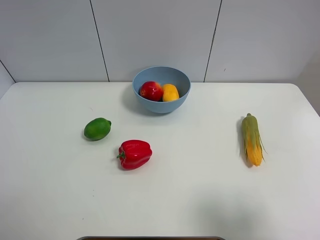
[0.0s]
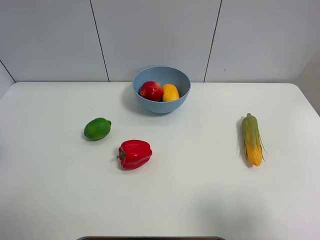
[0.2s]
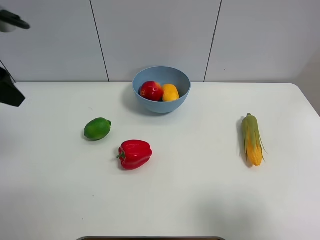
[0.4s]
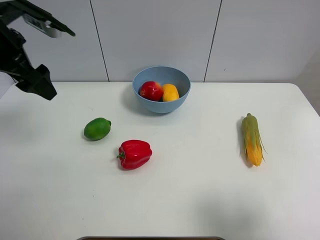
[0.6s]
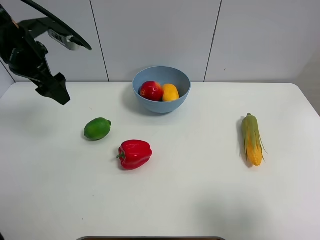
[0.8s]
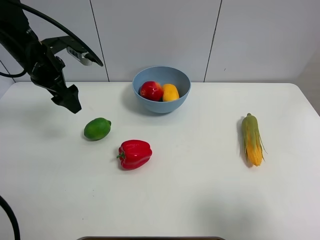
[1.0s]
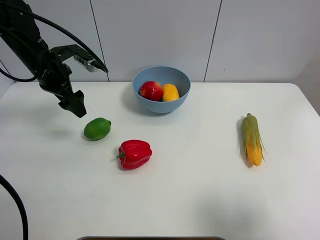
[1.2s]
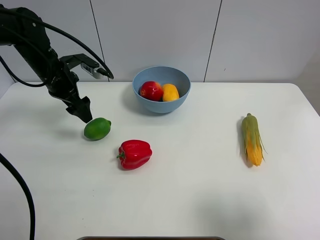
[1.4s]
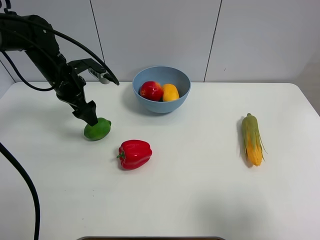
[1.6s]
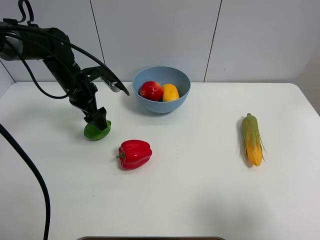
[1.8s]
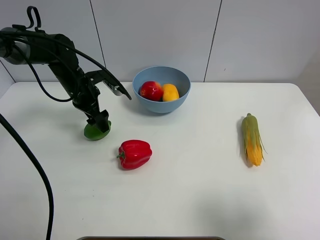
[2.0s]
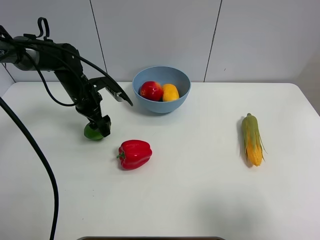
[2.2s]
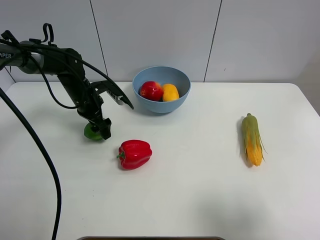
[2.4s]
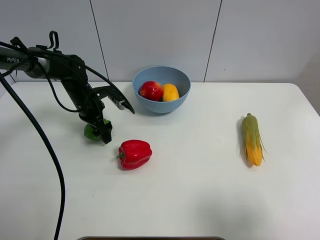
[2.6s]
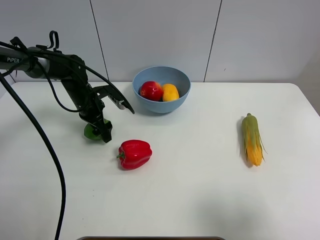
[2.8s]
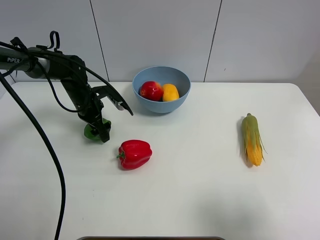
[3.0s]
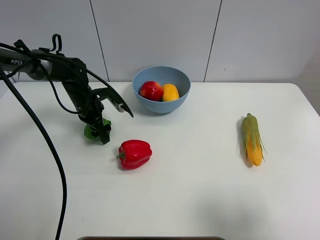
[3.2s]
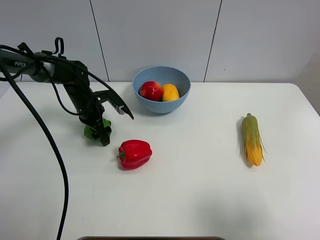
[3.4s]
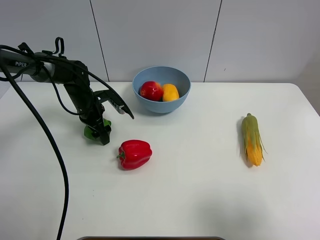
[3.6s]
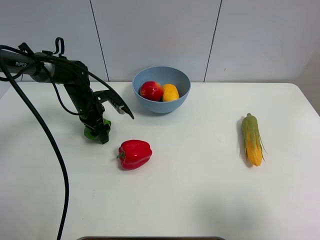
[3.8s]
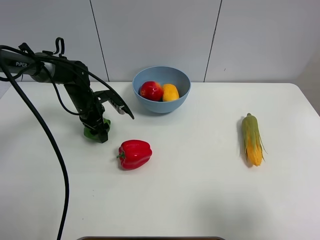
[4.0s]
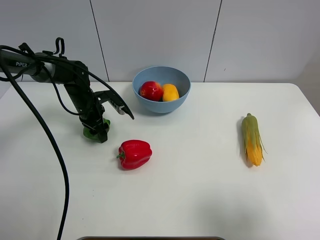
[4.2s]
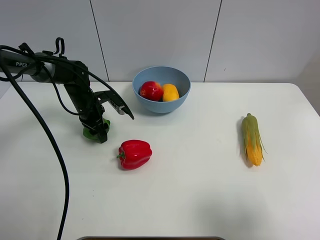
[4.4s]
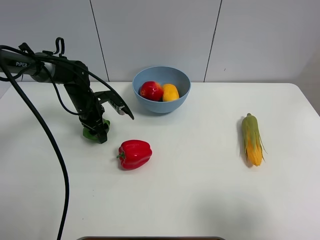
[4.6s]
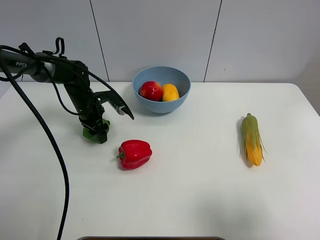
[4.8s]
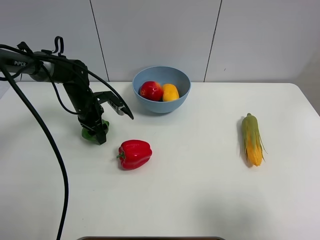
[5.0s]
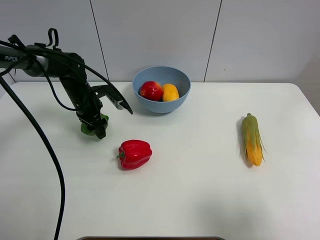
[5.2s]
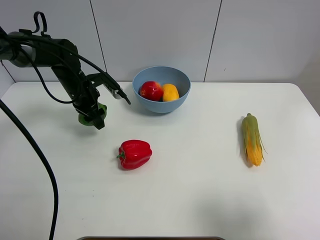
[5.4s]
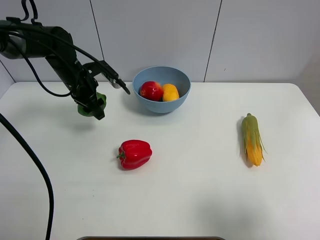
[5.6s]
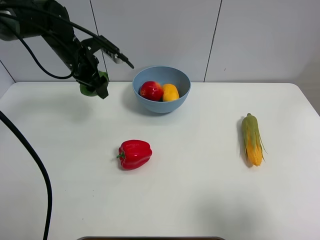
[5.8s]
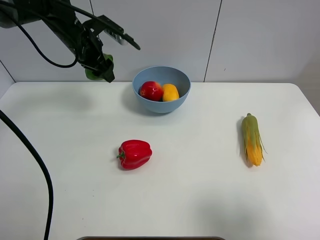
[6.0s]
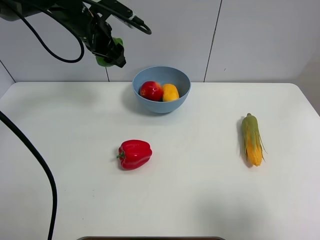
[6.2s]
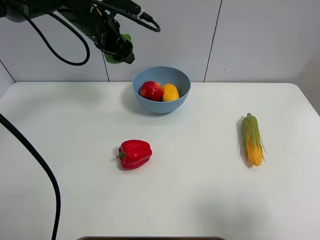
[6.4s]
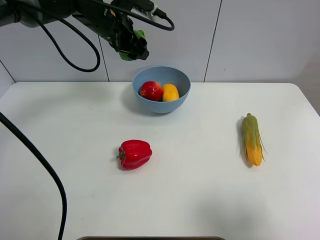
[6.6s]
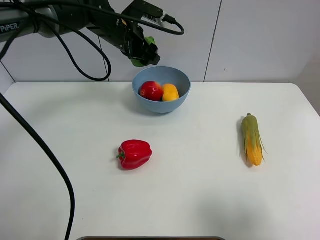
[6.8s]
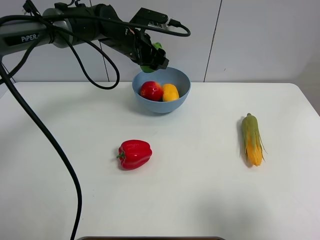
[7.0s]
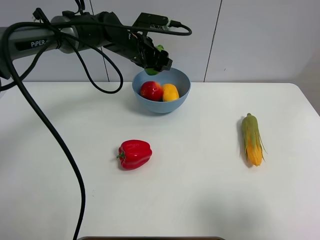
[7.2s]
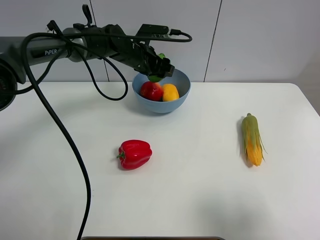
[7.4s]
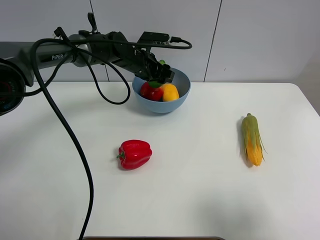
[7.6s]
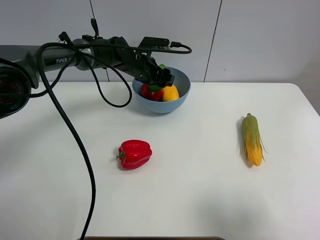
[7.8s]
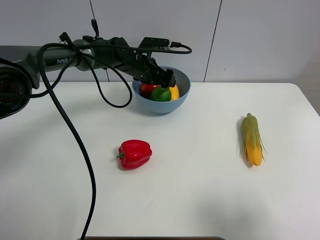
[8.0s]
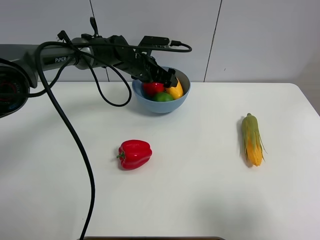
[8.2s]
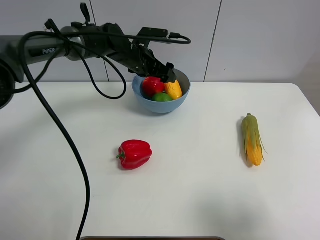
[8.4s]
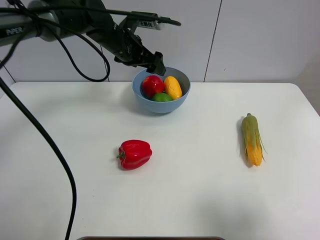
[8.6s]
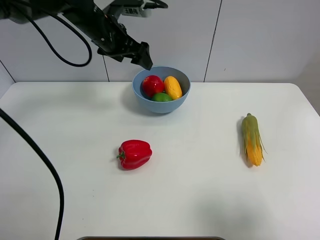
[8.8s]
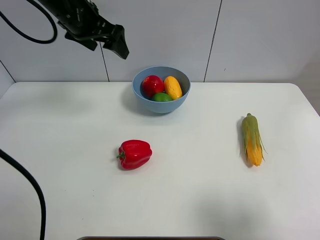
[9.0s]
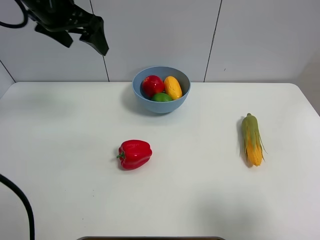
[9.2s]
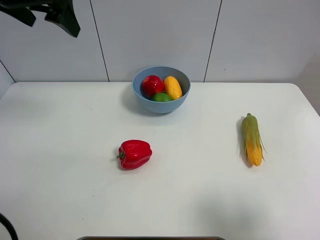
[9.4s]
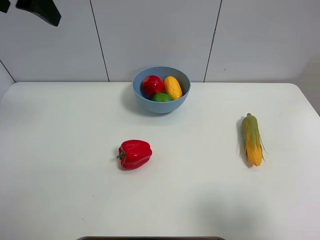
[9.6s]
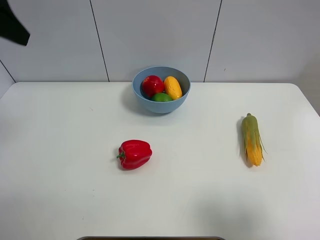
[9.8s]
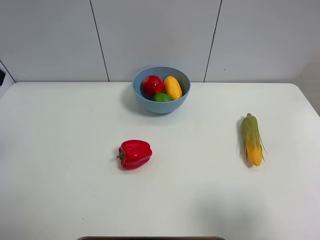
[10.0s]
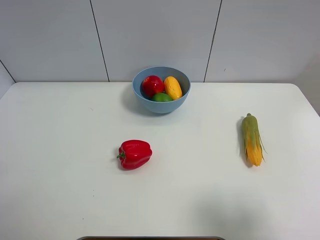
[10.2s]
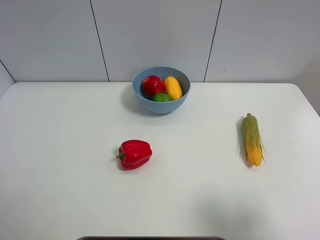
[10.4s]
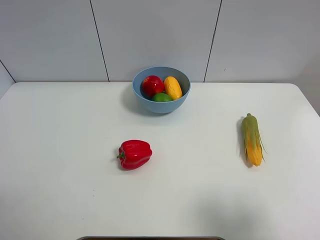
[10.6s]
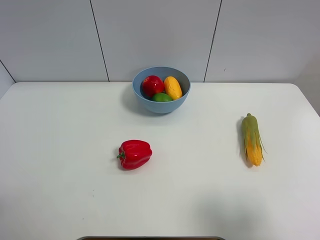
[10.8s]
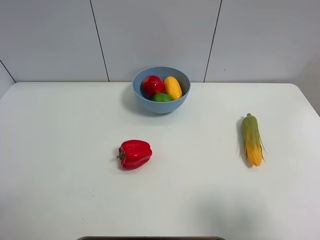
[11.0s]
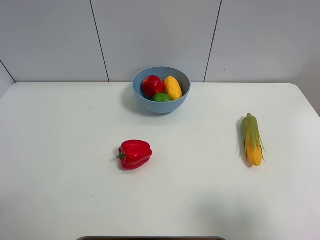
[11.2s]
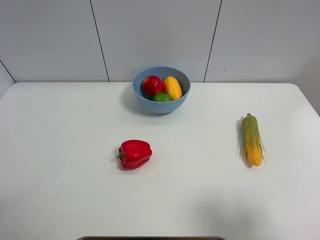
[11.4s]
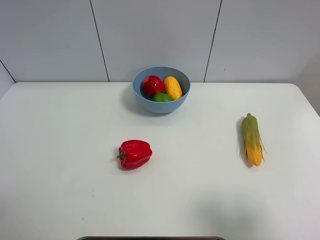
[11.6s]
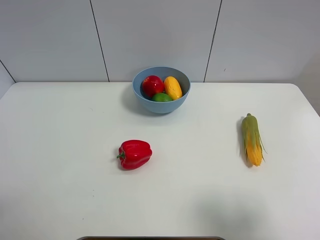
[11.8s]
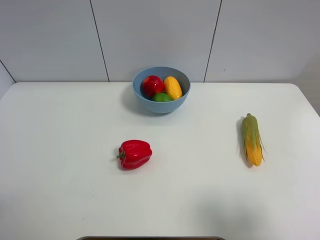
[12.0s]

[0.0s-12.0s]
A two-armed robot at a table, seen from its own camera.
Task of the whole recording: Put the three fruits on the table into a bowl.
Step, 0.0s to 4.0s: Grasp the green lemon with left gripper.
Step, 4.2s to 8.2s: Place the green lemon in the blue bowl with left gripper.
0.0s to 1.6s: The left gripper moves forward, downward and to the right, about 35 cm.
1.6s to 3.0s: The left gripper is displaced downward by some 10 cm.
3.0s to 4.4s: The left gripper closes.
4.4s to 6.0s: The left gripper goes about 15 cm upward.
6.0s to 7.6s: The left gripper is displaced to the right and downward by roughly 15 cm.
7.6s to 9.0s: The left gripper shifts some 20 cm upward, to the left and backward, and opens.
9.0s to 10.4s: The left gripper goes about 35 cm backward and to the left.

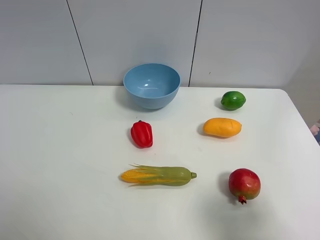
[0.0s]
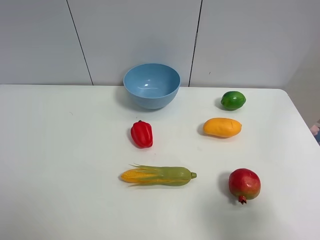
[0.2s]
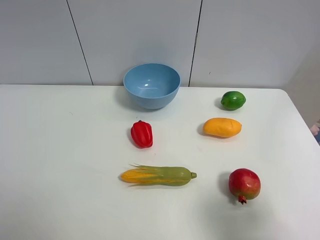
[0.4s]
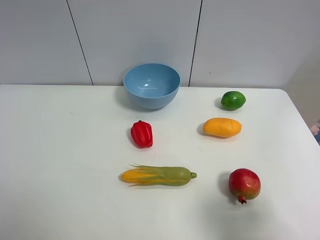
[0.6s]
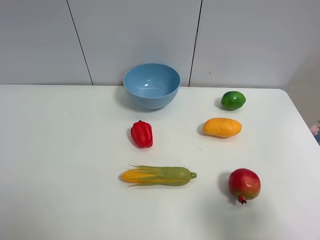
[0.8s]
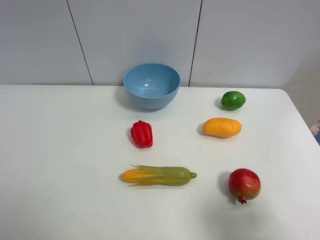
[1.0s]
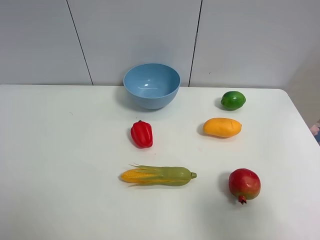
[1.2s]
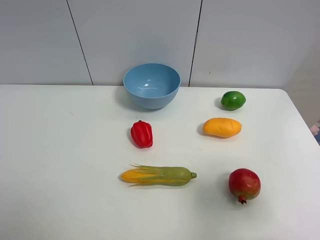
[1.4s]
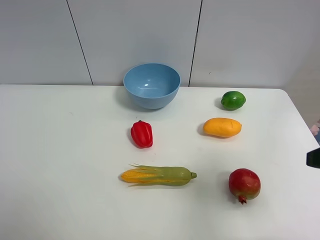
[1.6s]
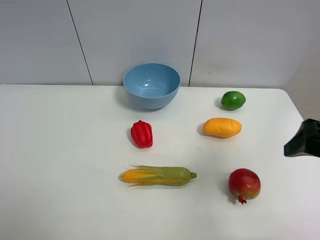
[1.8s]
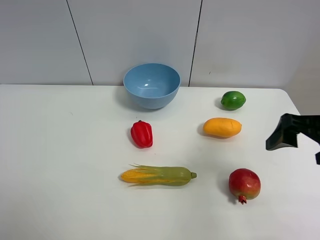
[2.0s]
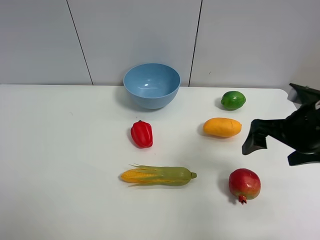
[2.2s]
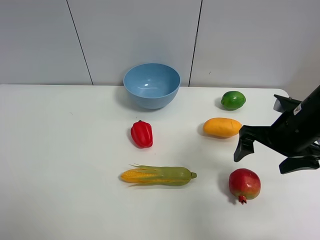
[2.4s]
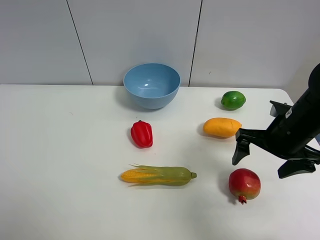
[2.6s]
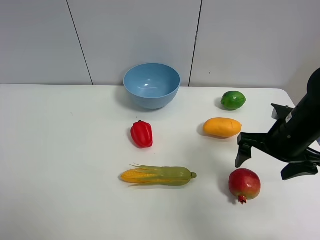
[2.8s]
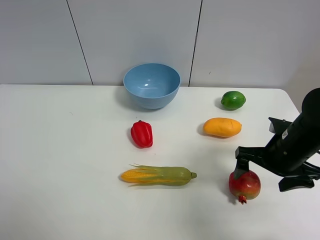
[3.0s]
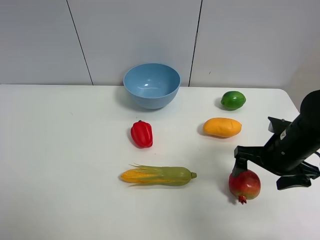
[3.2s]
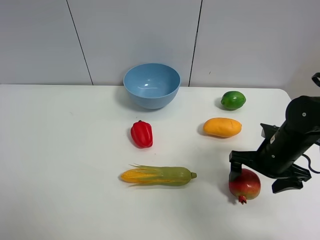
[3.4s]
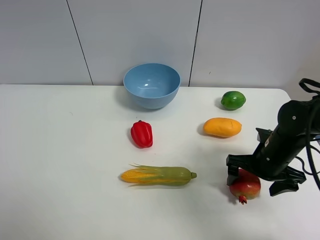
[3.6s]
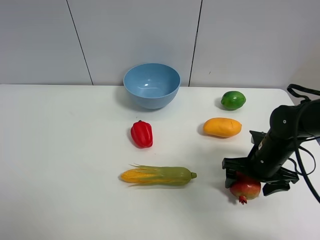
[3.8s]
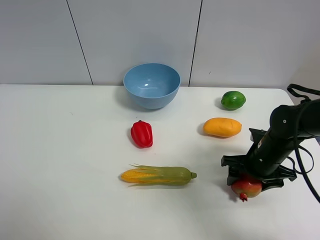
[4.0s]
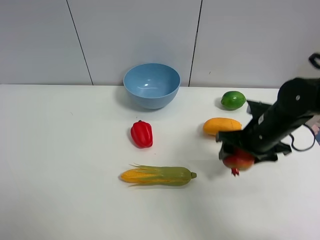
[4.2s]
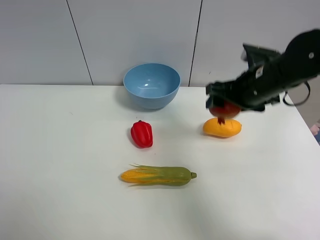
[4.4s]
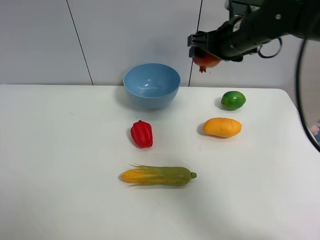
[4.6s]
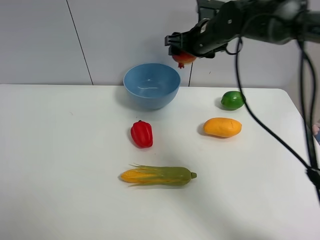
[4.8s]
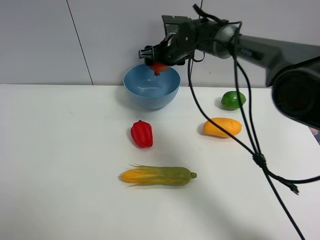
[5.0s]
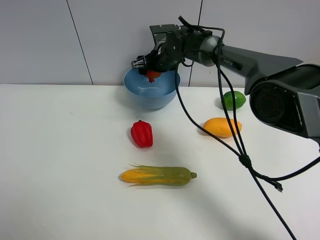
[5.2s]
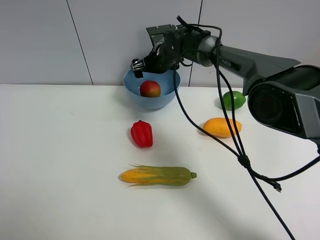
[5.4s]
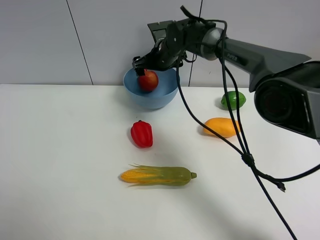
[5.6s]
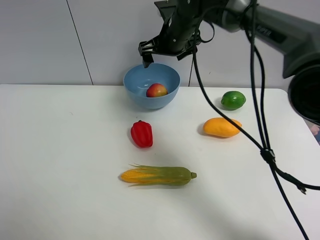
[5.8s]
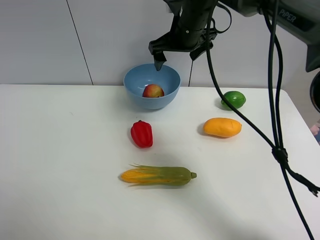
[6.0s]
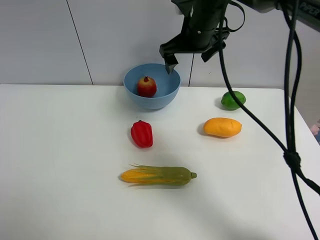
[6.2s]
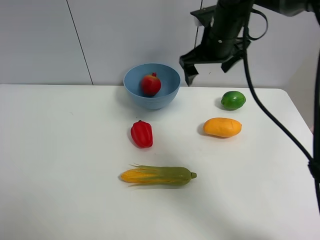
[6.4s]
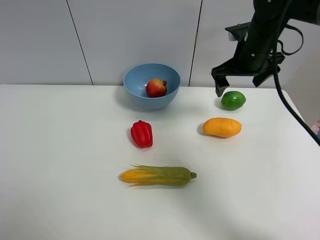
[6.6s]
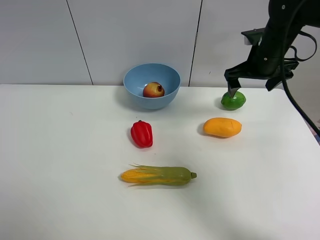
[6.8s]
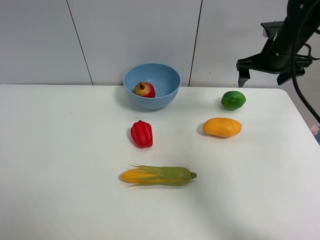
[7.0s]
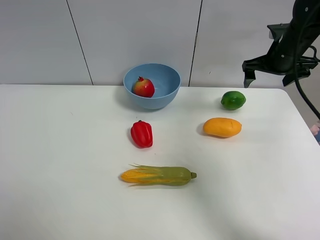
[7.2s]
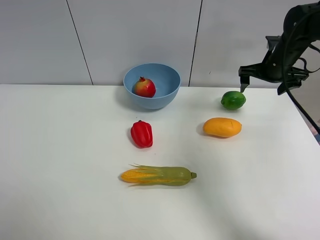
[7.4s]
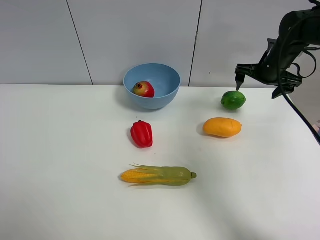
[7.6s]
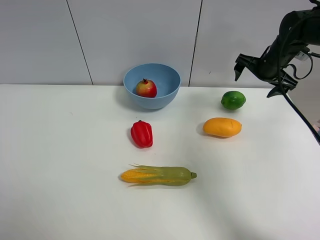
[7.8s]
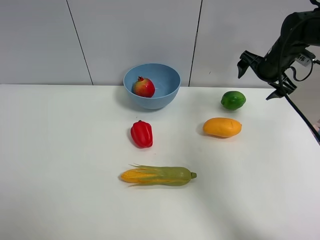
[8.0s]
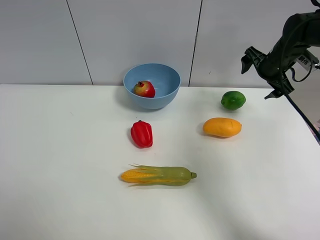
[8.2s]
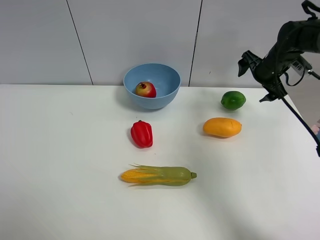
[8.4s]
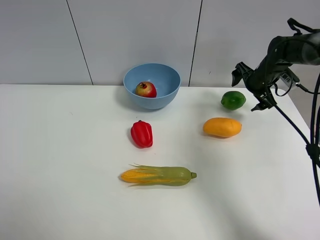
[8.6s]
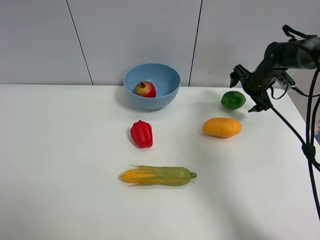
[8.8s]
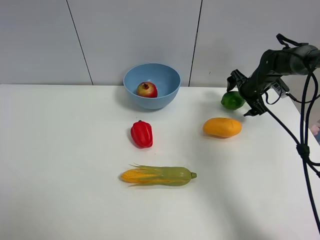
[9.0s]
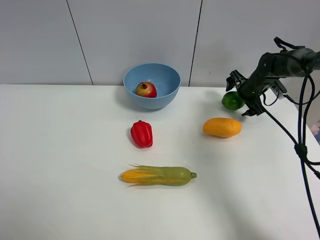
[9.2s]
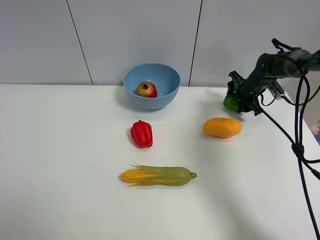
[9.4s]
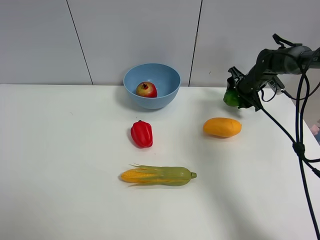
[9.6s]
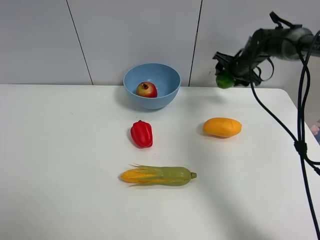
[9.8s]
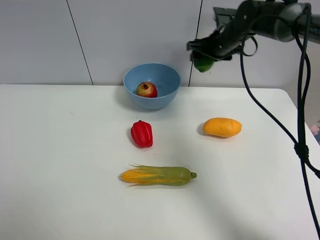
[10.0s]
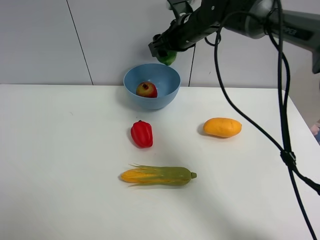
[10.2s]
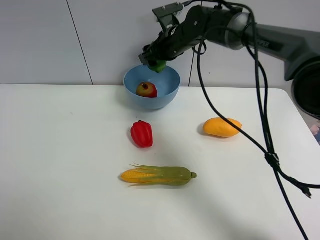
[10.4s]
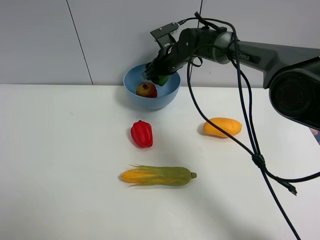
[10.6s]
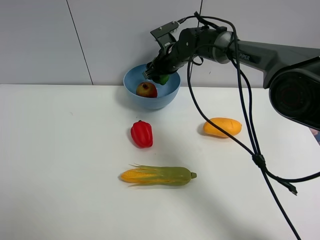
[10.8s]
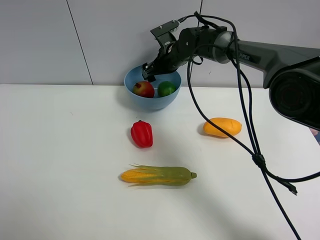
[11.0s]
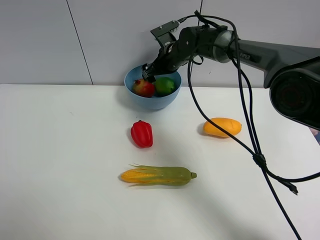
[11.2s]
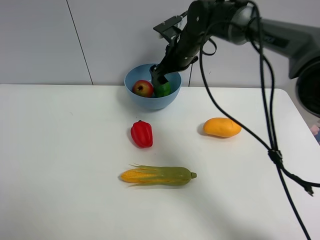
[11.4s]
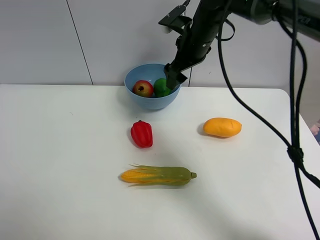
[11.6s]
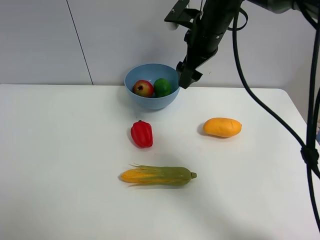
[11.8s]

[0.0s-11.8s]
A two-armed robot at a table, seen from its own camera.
Task of the whole recording: Put the three fruits on the table into a bowl.
Step, 0.0s to 4.0s: Grasp the pomegranate with right gripper.
Step, 4.2s to 5.4s: Place the pomegranate in the blue bowl with right gripper.
Step, 5.6s to 9.4s: Grasp the green lemon with right gripper.
Step, 9.6s to 11.2s: Place the green lemon in the blue bowl with right gripper.
0.0s to 1.4s: The right gripper goes some 5 cm forward.
1.4s to 3.0s: The right gripper goes roughly 20 cm forward and downward.
3.0s to 4.4s: The right gripper goes some 15 cm upward, forward and to the left, and closes its fingers.
4.4s to 6.0s: The right gripper travels to the left and forward by roughly 15 cm, and opens.
6.0s to 7.4s: The right gripper travels to the right by some 20 cm.
7.4s to 8.8s: The right gripper travels downward by roughly 10 cm.
8.8s to 10.4s: The right gripper is displaced to the left by approximately 25 cm, and closes.
10.4s to 11.8s: The right gripper moves backward, upward and to the right, some 10 cm, and opens its fingers.
